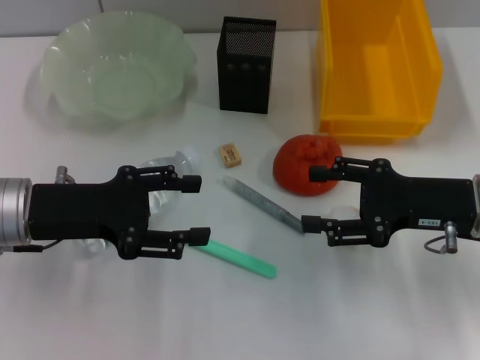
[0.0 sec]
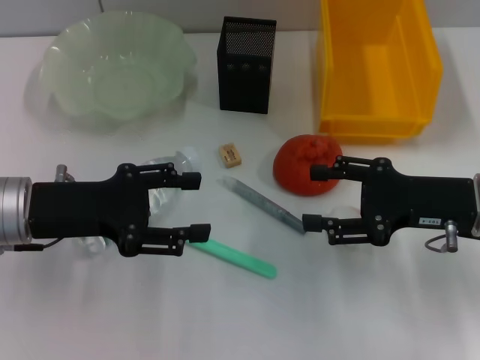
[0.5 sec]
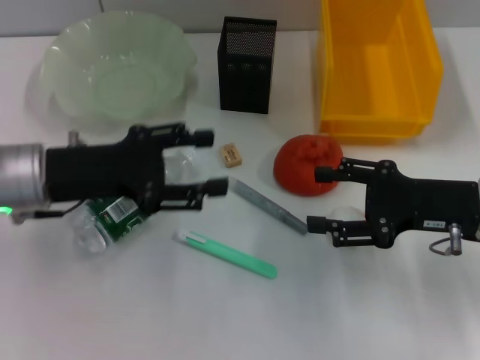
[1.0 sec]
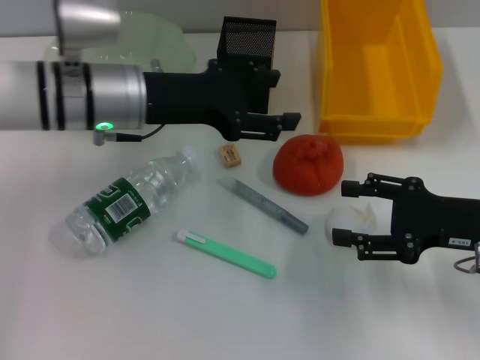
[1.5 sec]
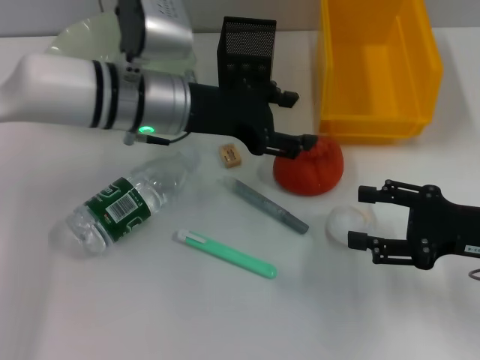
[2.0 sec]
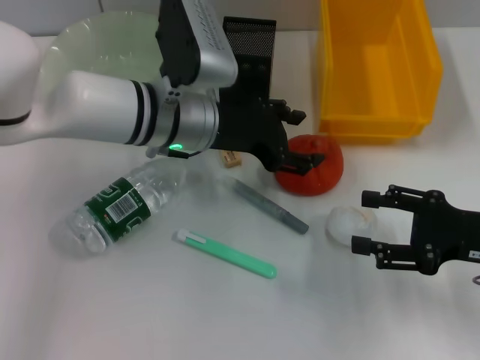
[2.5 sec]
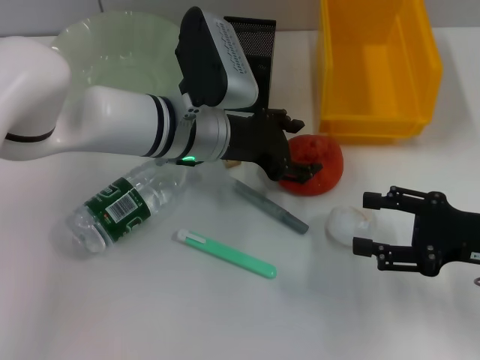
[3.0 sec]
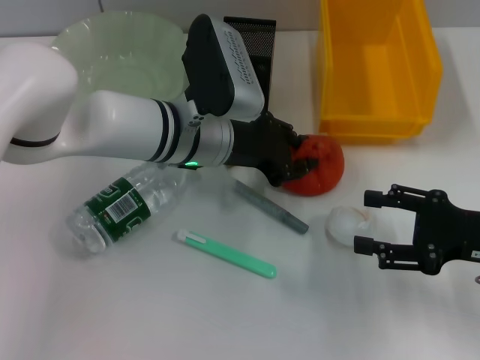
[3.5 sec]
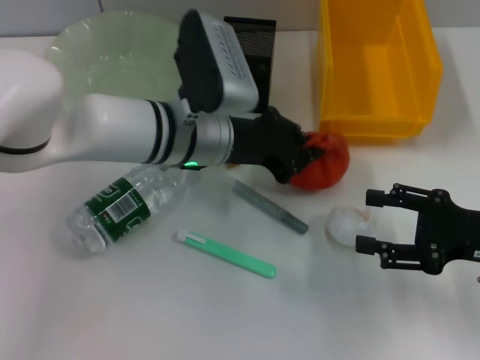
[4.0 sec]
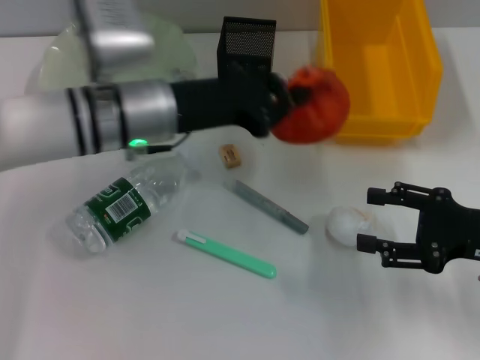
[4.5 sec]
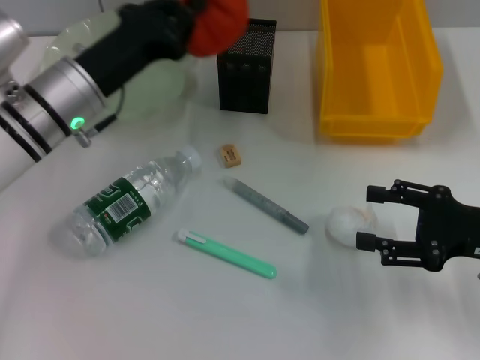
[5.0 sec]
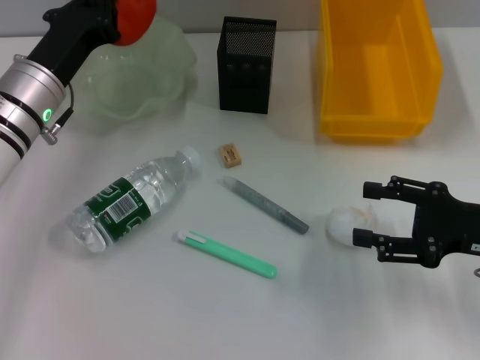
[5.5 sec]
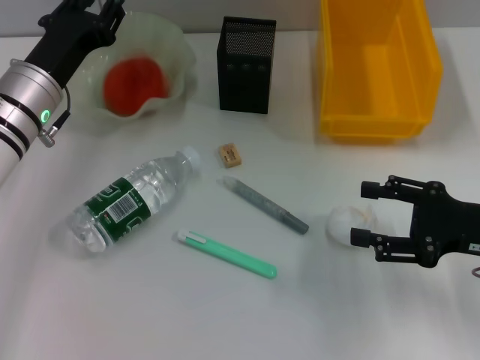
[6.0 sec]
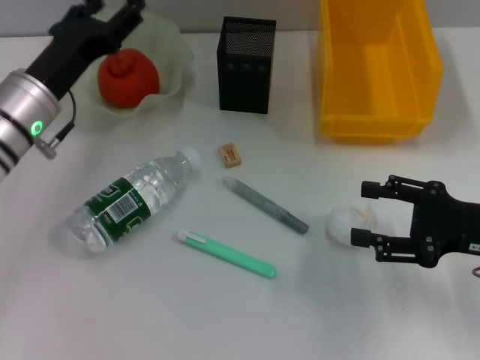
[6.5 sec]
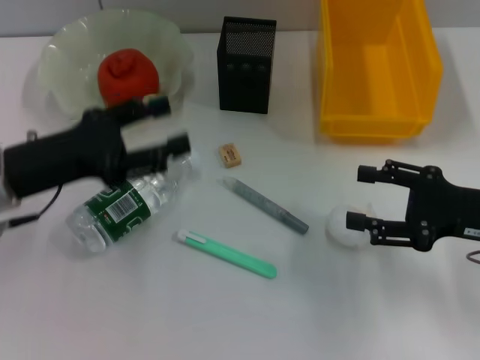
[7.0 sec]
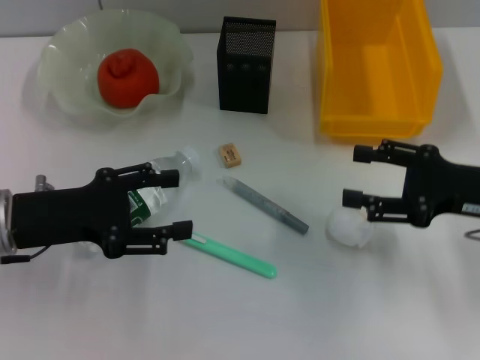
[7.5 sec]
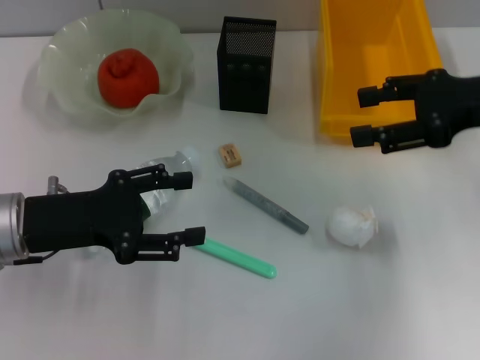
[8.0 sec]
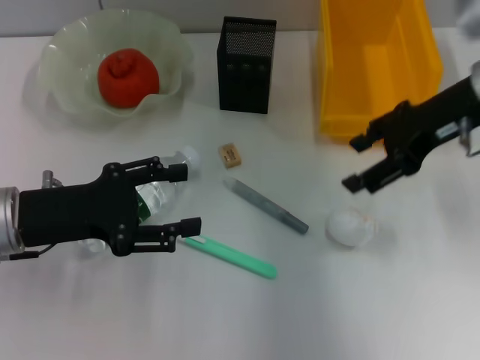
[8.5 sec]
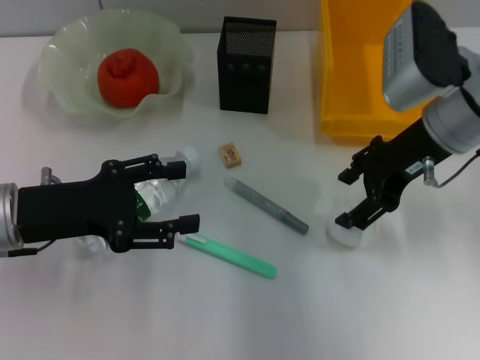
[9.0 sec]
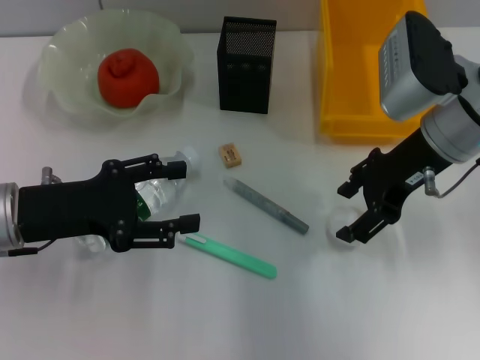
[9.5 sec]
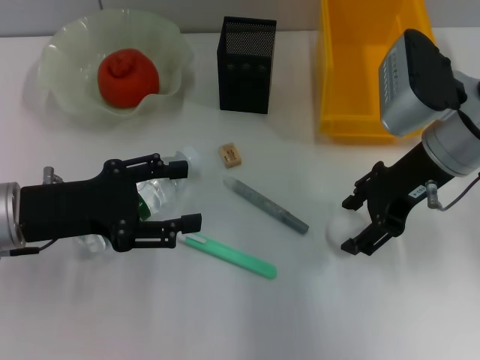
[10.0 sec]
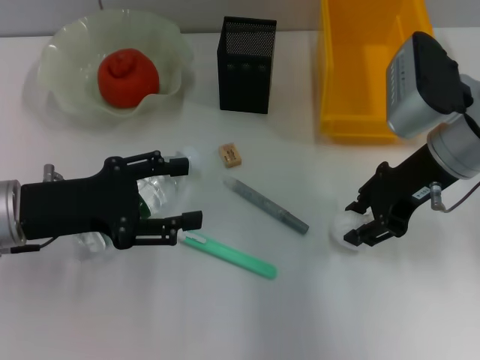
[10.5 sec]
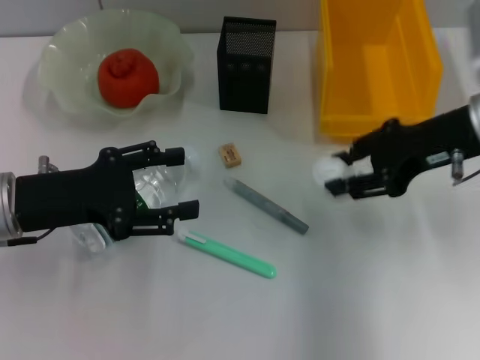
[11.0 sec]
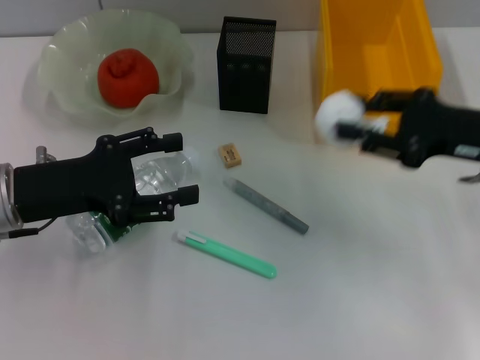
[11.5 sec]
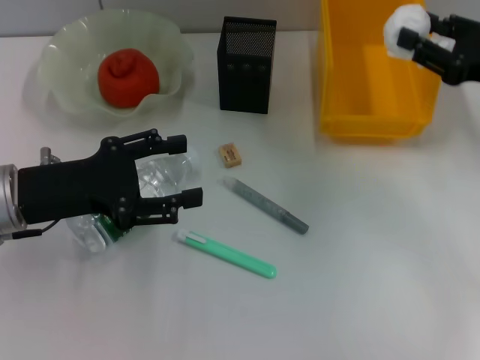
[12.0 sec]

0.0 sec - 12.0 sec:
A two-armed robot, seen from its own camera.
Step, 0.0 sec - 3.5 sec: Grab the orange with the left hand.
Step, 4.0 sec - 6.5 sec: Place the orange into the fruit bowl with the left hand.
Step, 7.0 sec - 10.0 sec: Grab the paper ball with the right hand.
0.0 sec - 2.0 sec: The right gripper shifts by some 5 cm. The left gripper shifts approximately 15 cm to the right and forward.
2.0 sec - 4.0 sec: The left gripper shifts by about 5 cm, and closes.
4.0 sec - 6.0 sec: The left gripper shifts some 15 cm to the left.
6.0 sec - 8.0 sec: The left gripper is displaced backward by some 10 cm, and opens. Meanwhile the right gripper shifts approximately 15 cm upward and forward.
8.0 sec - 10.0 sec: The right gripper shifts some 10 cm to the left.
10.0 sec - 12.0 sec: The right gripper heads to the right, covering approximately 10 cm, and closes.

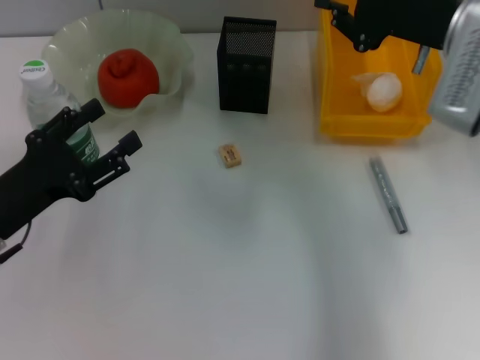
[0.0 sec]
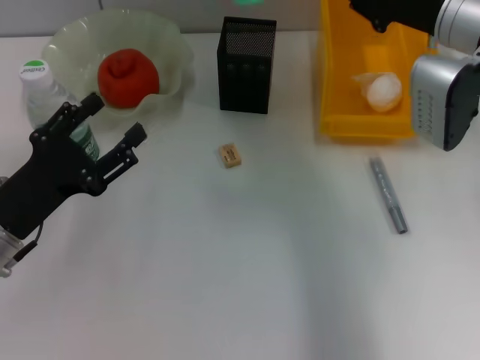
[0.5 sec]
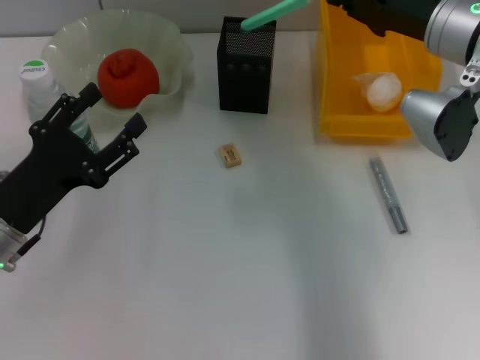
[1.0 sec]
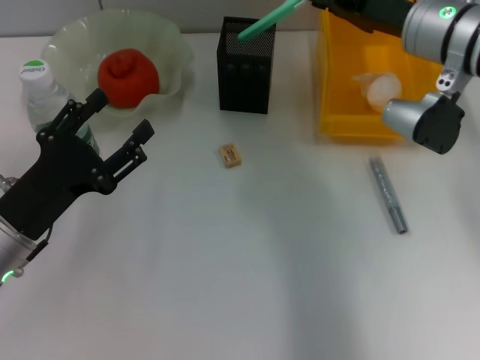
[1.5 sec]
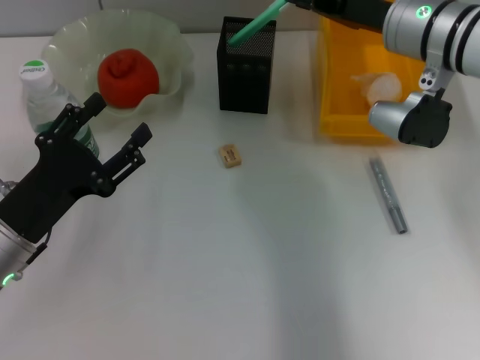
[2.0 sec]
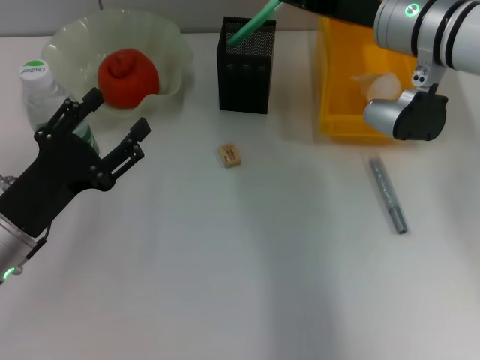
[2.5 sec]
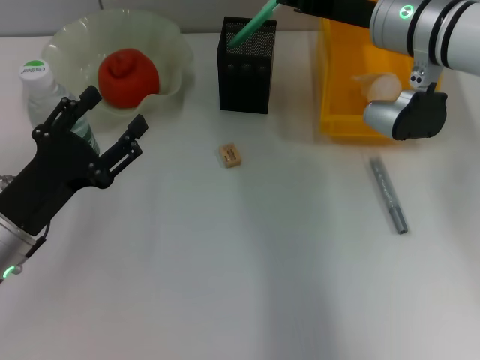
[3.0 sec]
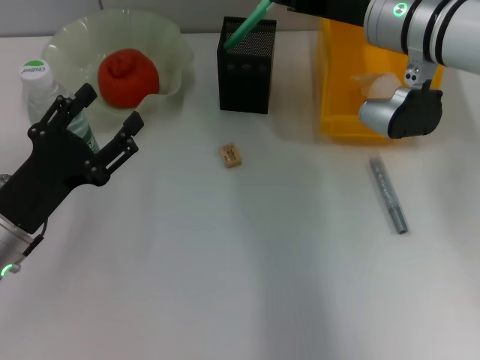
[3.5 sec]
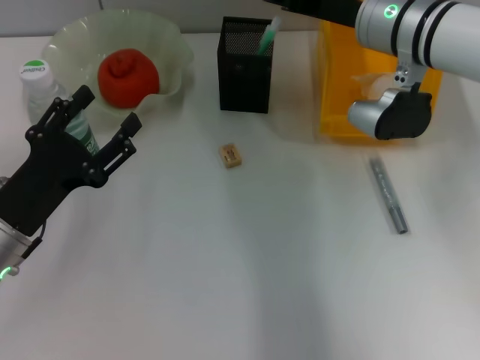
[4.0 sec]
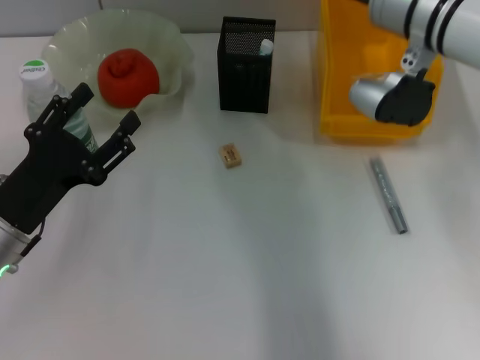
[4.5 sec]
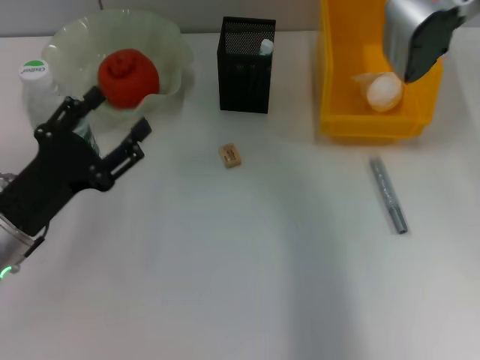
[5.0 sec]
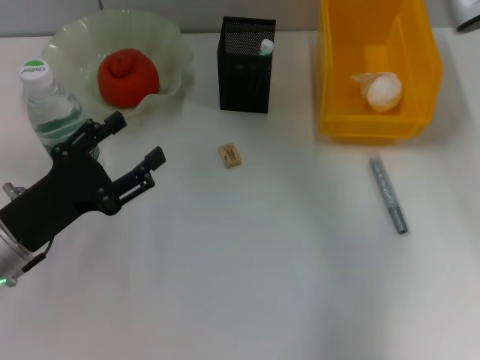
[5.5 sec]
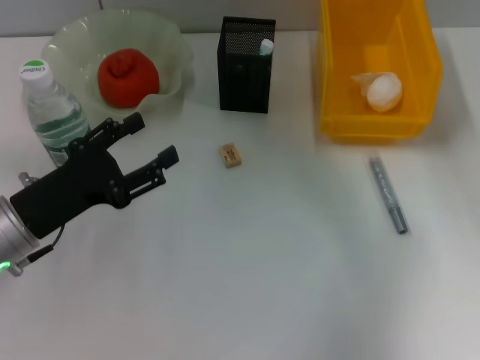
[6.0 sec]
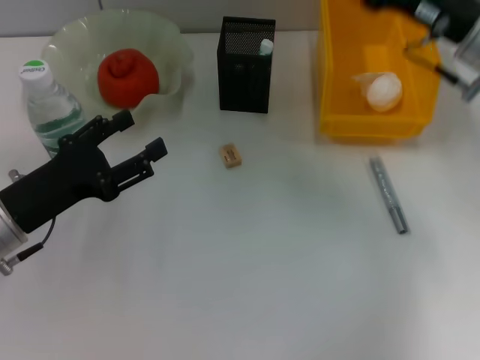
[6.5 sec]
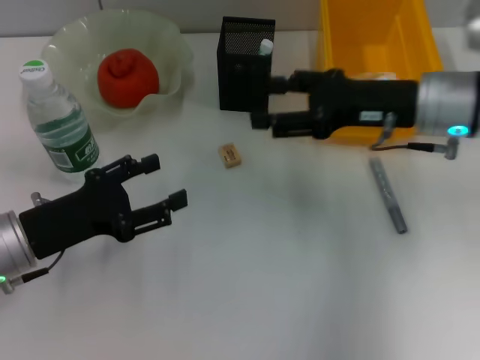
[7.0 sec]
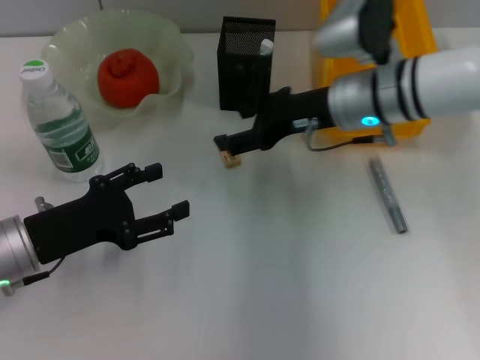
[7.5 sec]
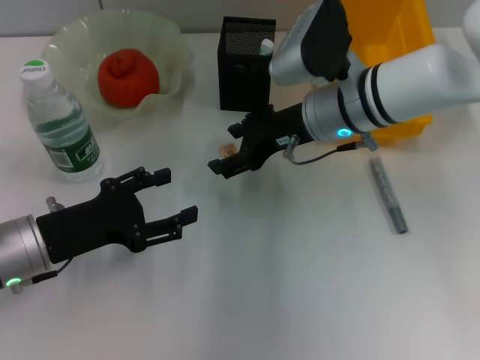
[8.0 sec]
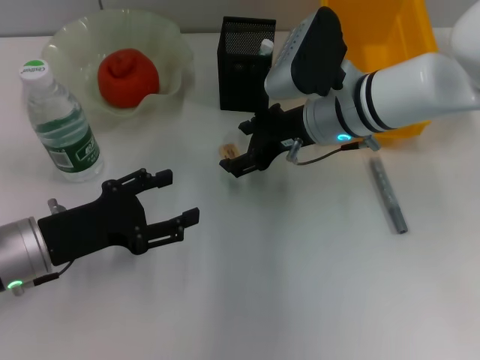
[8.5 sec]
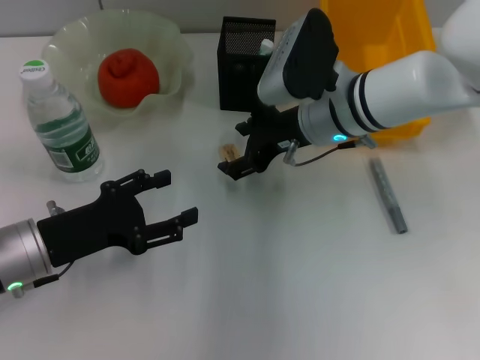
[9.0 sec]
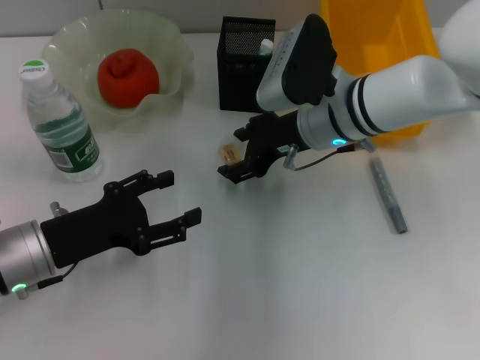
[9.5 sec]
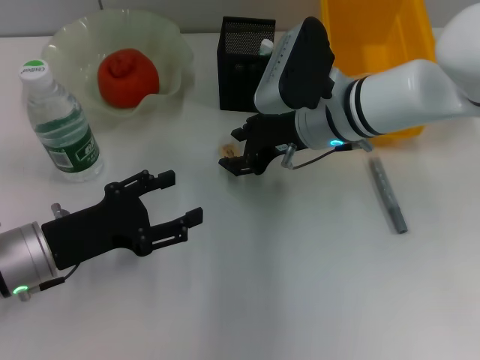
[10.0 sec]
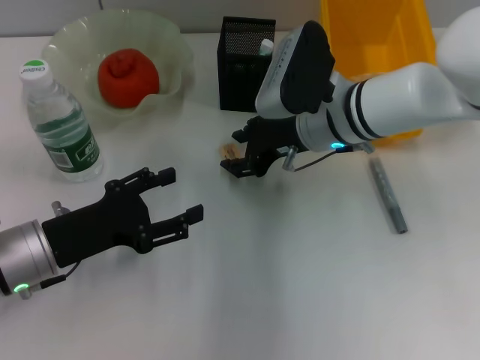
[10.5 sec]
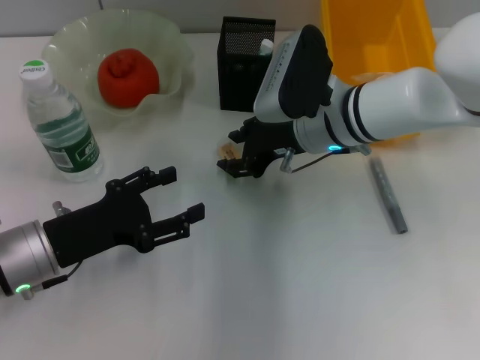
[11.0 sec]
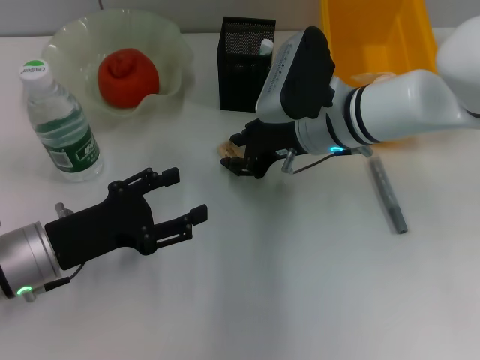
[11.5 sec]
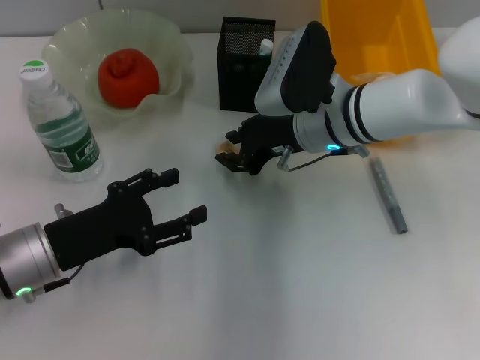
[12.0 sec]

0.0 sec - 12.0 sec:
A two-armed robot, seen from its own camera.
Step, 0.0 sec - 4.5 sec: Place the blue utility knife into the pen holder with the right hand.
0.0 sec - 2.0 sec: The right gripper ends up about 5 cm from where it was.
2.0 sec - 4.0 sec: The grippers stay close to where they were, moving slightly.
4.0 sec - 6.0 sec: The right gripper goes approximately 10 cm to the right.
6.0 sec - 8.0 sec: The right gripper shifts roughly 15 cm to the left and downward, and opens.
8.0 sec - 10.0 sec: The grippers move only a little.
10.0 sec - 12.0 sec: Both grippers stay about where they are.

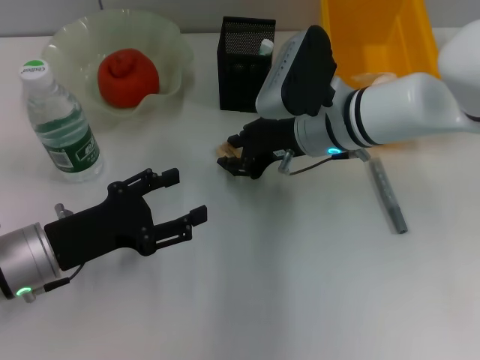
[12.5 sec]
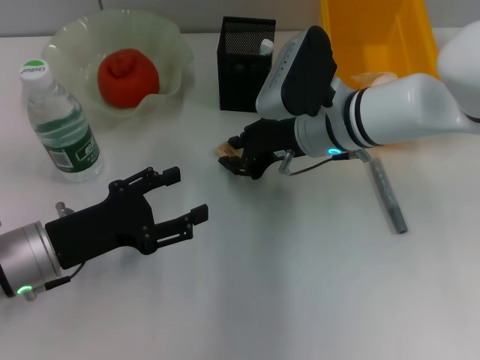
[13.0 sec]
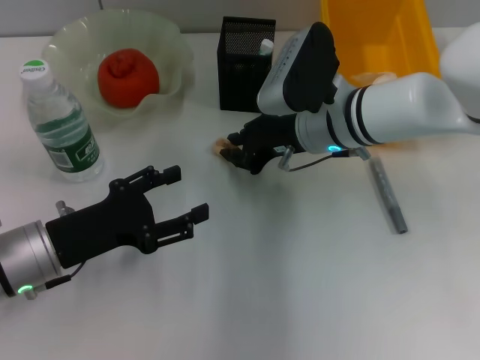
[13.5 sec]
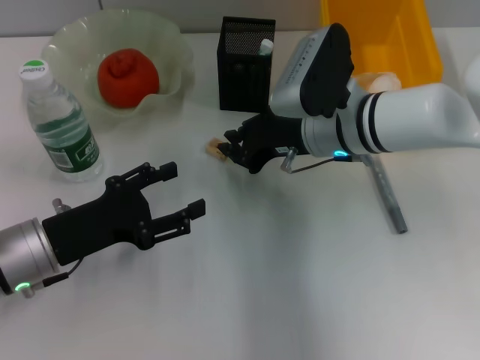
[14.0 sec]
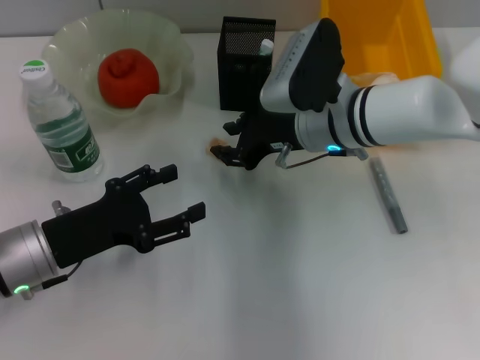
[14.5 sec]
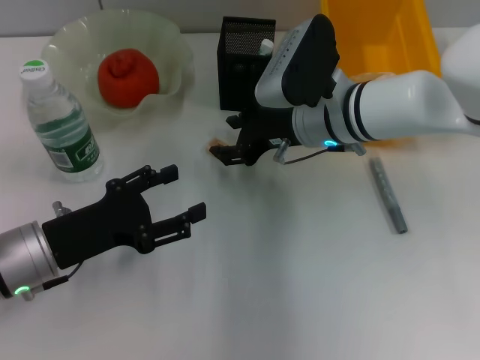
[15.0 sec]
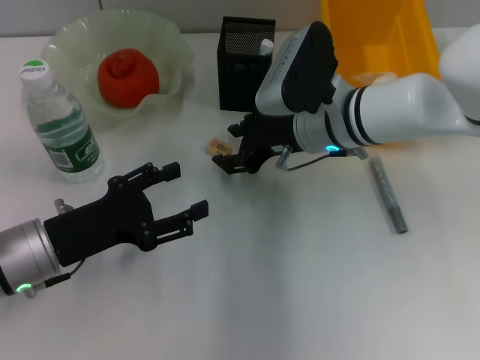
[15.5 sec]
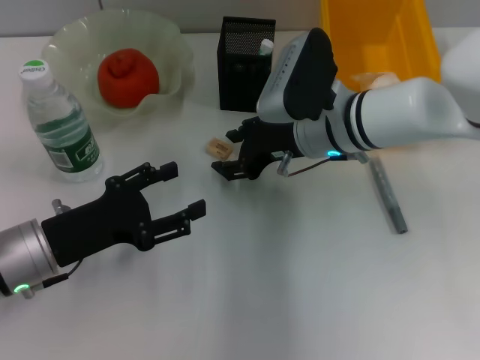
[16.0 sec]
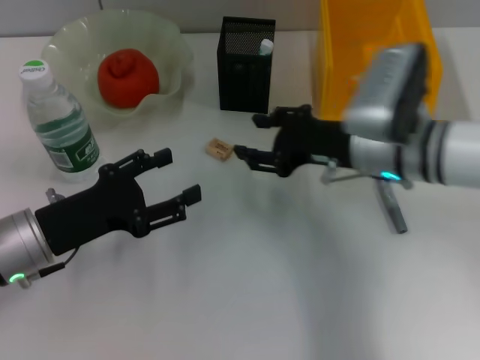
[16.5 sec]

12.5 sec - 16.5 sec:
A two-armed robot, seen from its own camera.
12.5 sec - 14.5 sec: There are only small adjustments of the grippers.
14.5 sec - 16.5 sec: The right gripper heads to the right, covering approximately 5 cm, and opens its fingers.
